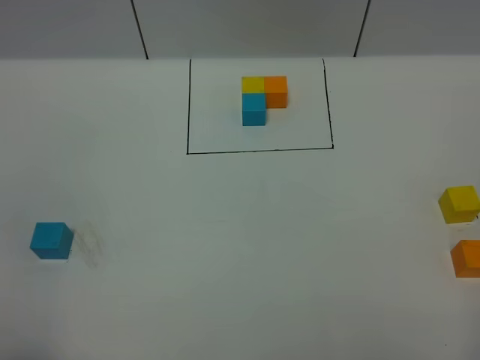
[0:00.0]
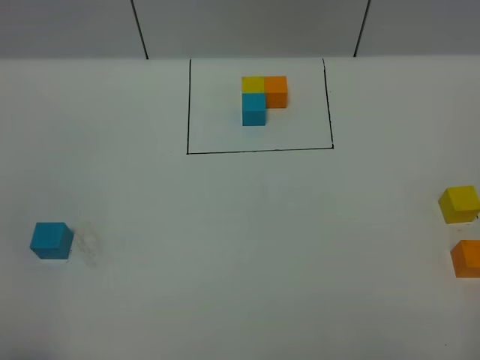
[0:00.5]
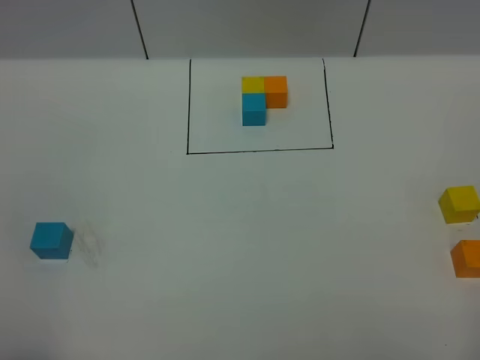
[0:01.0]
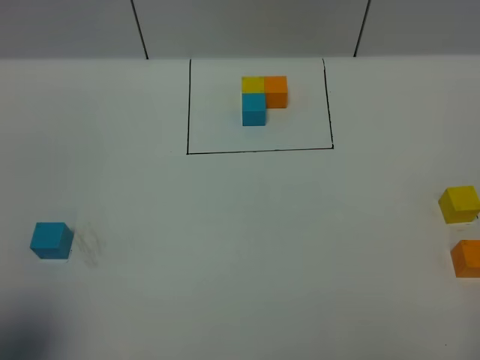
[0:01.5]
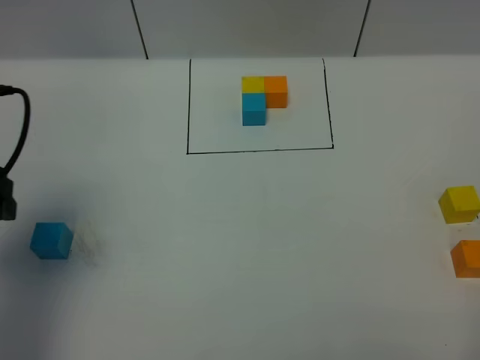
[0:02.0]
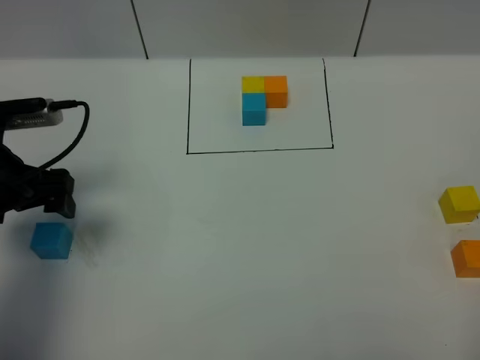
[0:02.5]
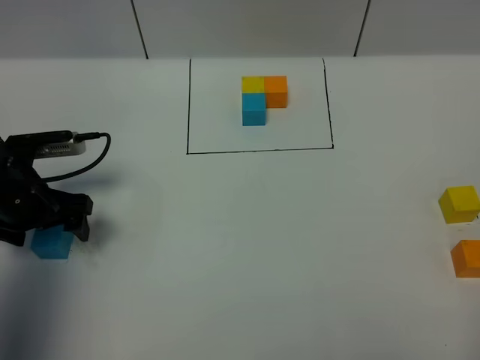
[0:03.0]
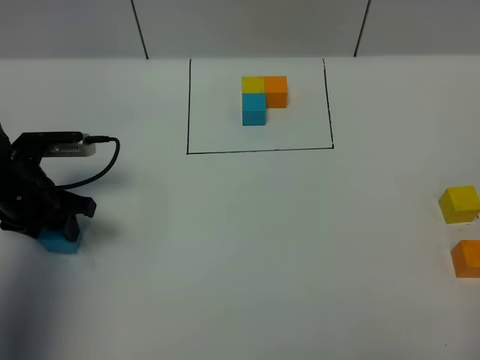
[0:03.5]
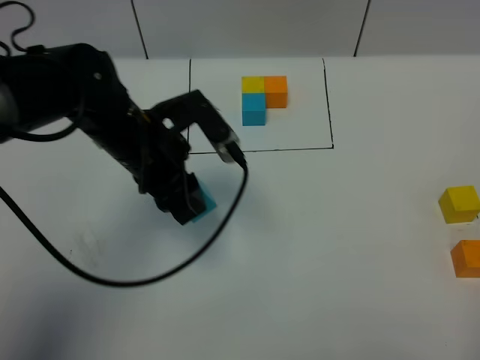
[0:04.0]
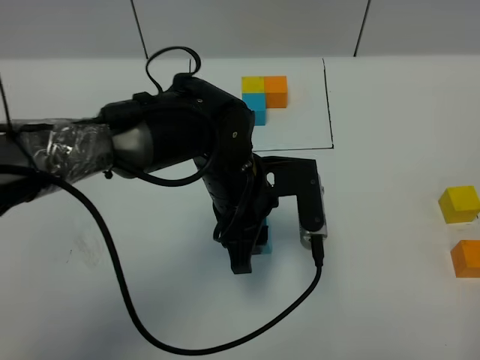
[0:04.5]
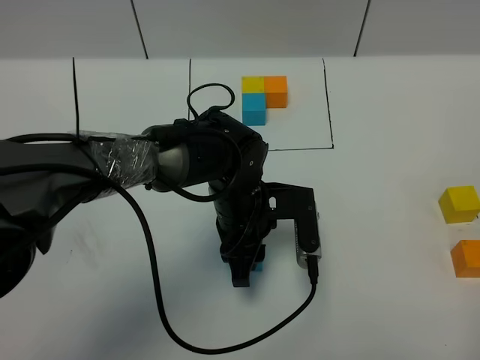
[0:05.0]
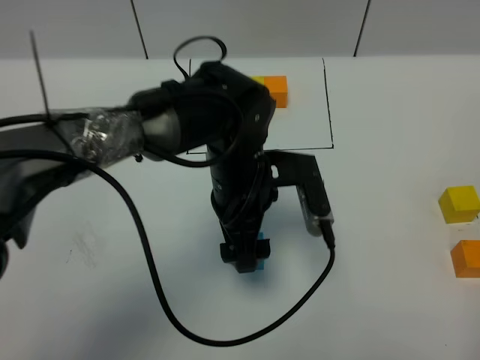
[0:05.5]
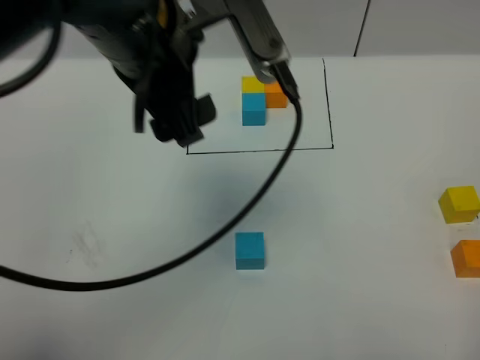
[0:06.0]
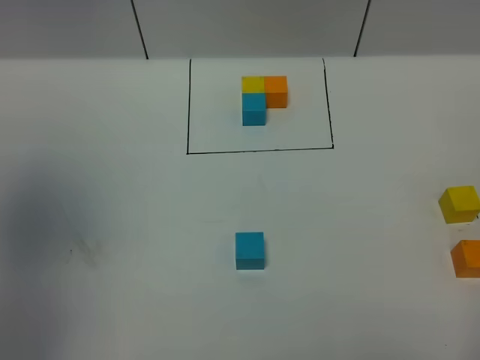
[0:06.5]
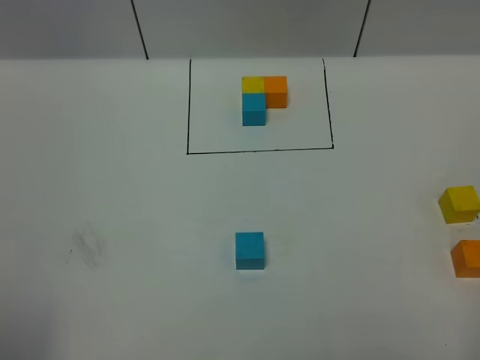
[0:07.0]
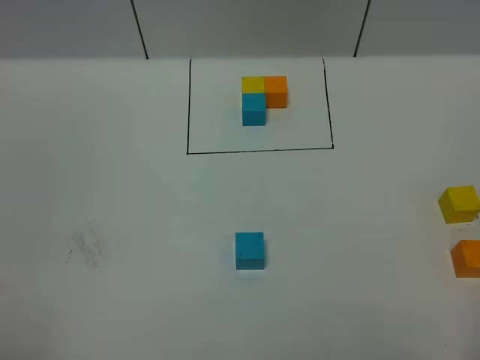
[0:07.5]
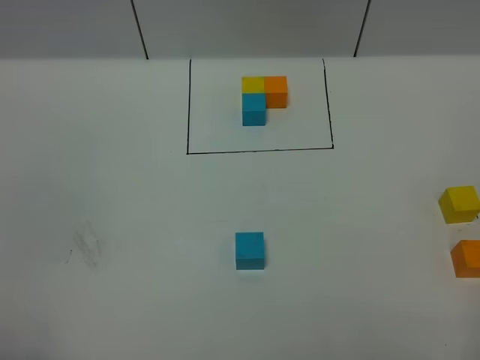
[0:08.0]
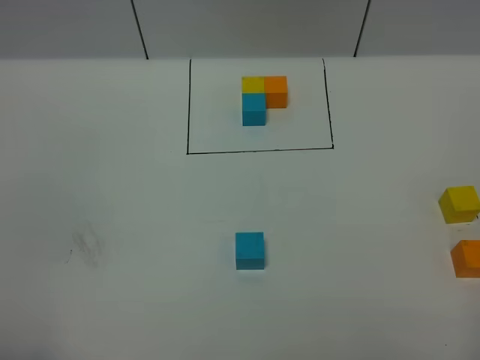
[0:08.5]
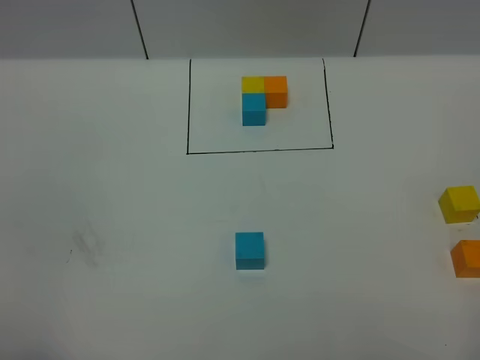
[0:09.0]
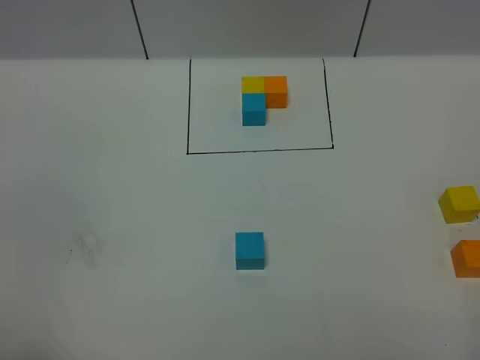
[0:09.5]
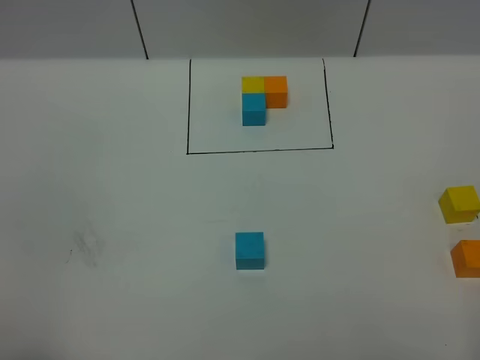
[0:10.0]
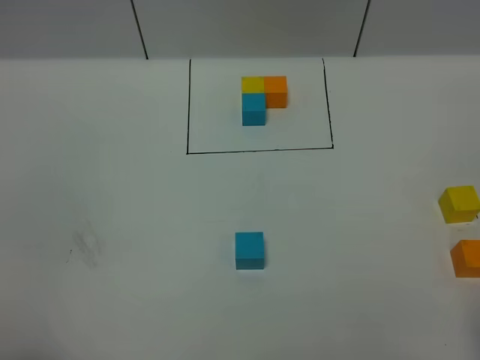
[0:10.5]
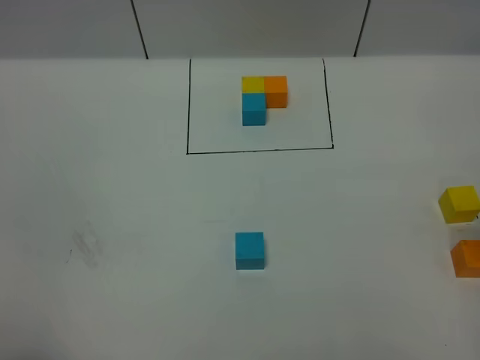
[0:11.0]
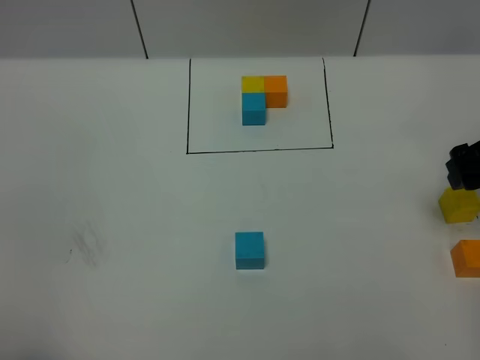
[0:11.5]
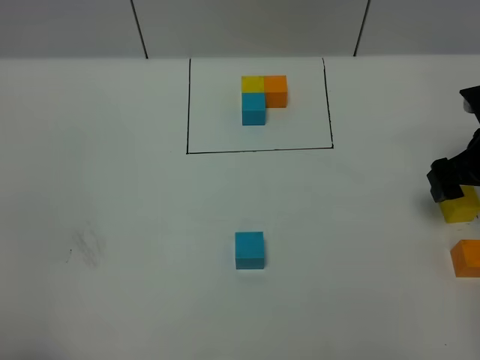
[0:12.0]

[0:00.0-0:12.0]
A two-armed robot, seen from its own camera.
Task of the whole recording: According to the building block template in front, assemble the scattered blocks together.
Step, 0:02.0 to 0:05.5: Put the blue cube in the center of the table.
0:00.0 to 0:02.0: The left gripper travels forward by some 25 cm.
0:02.0 to 0:04.0: The left gripper goes some 20 cm to the right, forward and downward, and closes up.
0:04.0 to 0:06.0: The left gripper heads upward, covering approximately 20 cm, and opens up.
0:06.0 to 0:08.0: The left gripper moves backward and to the left, approximately 35 cm.
0:10.0 to 0:12.0: The right gripper is displaced forward by approximately 35 cm.

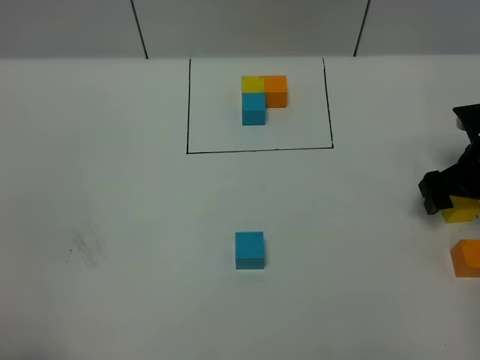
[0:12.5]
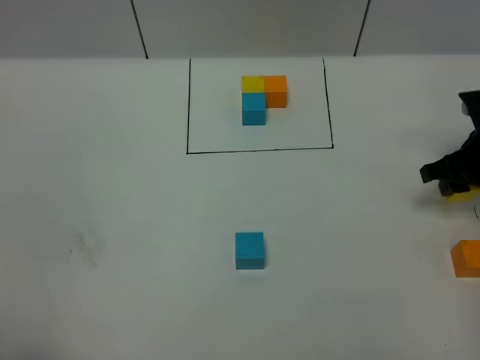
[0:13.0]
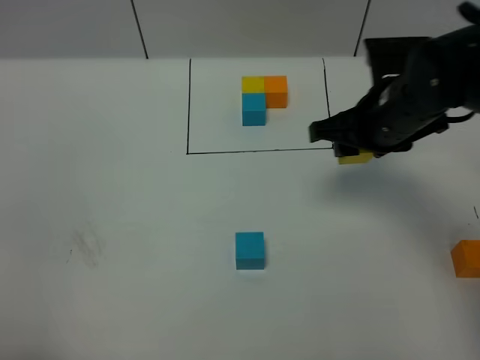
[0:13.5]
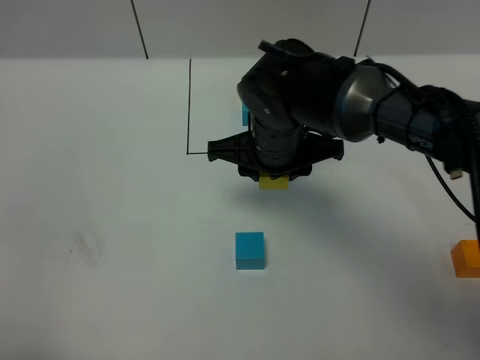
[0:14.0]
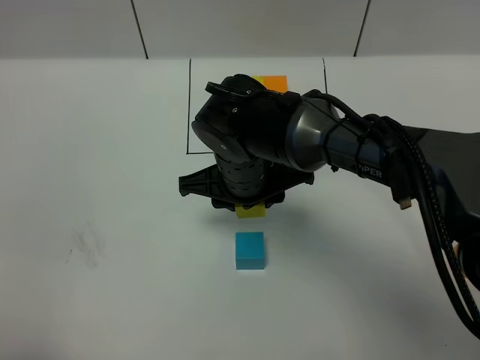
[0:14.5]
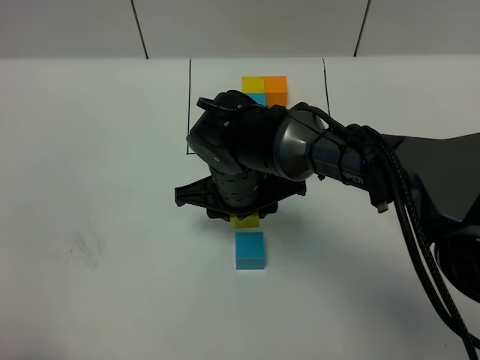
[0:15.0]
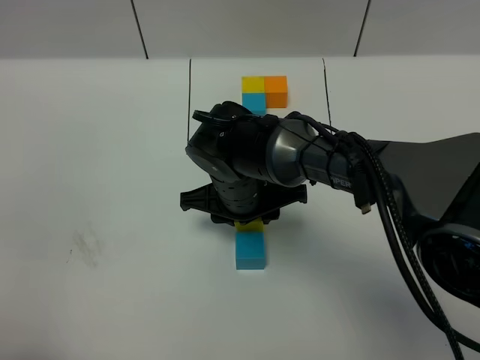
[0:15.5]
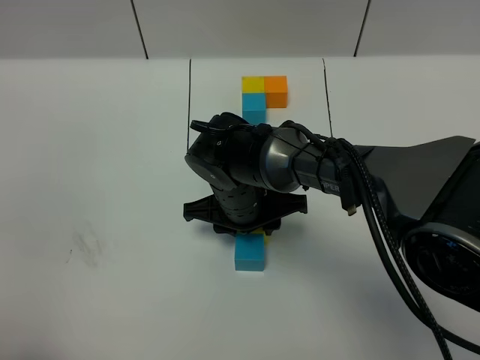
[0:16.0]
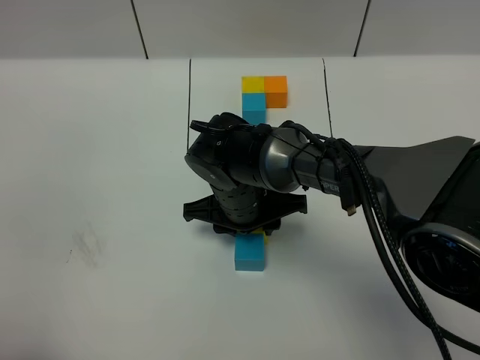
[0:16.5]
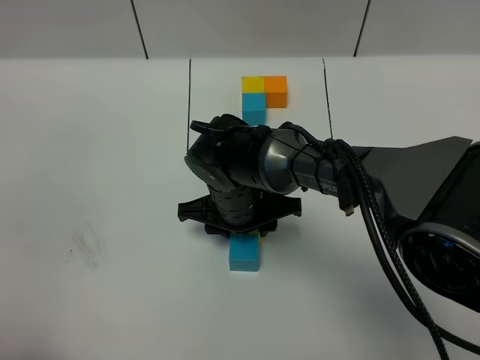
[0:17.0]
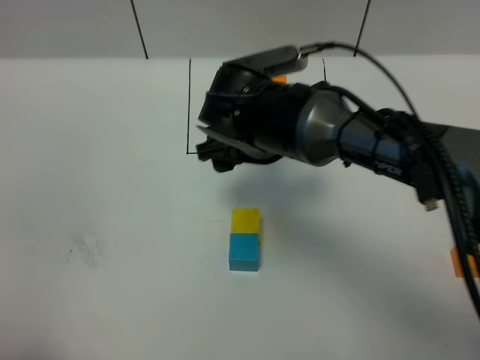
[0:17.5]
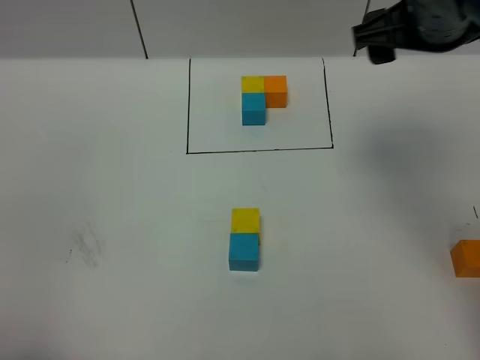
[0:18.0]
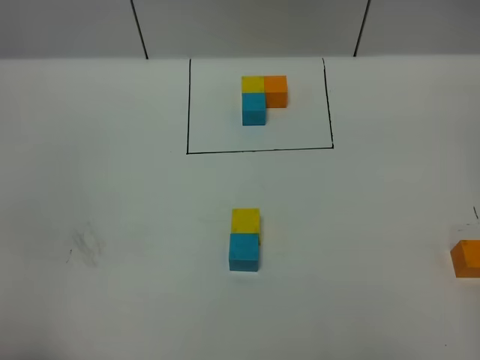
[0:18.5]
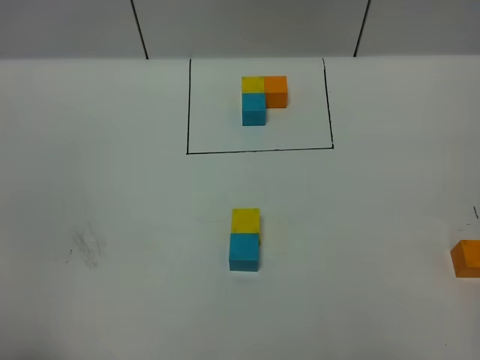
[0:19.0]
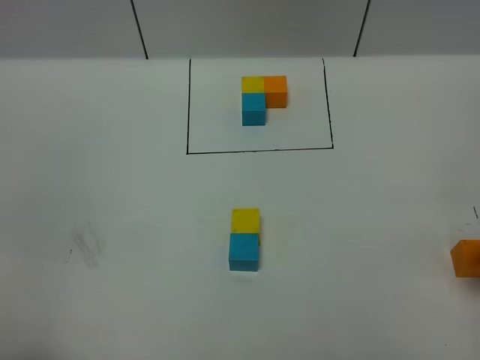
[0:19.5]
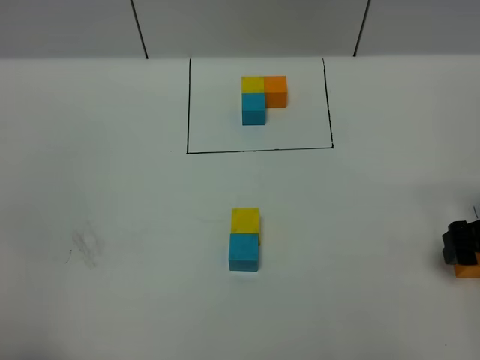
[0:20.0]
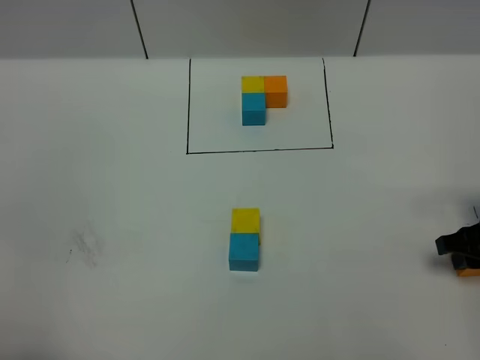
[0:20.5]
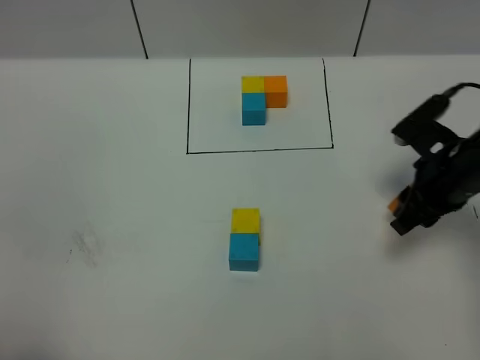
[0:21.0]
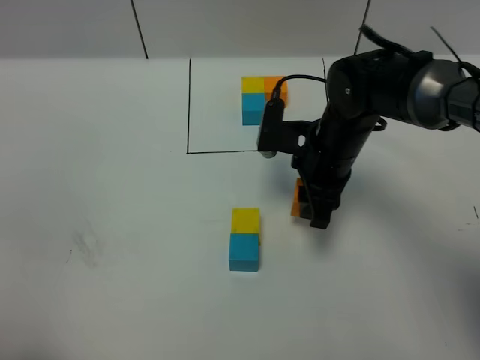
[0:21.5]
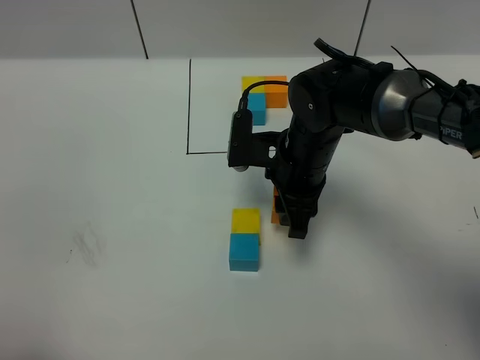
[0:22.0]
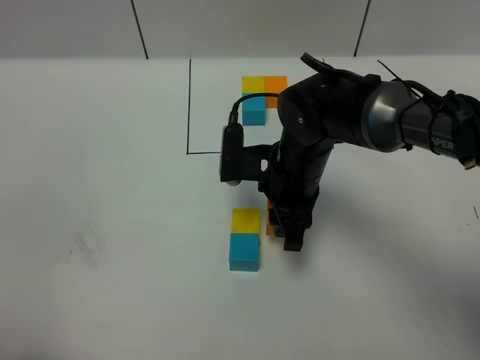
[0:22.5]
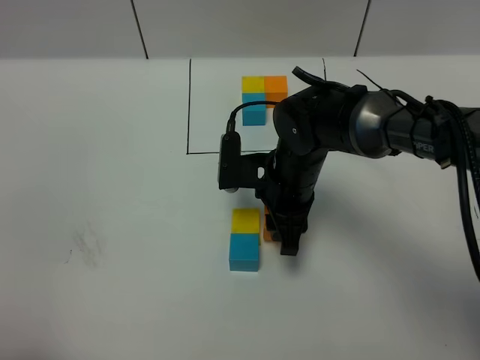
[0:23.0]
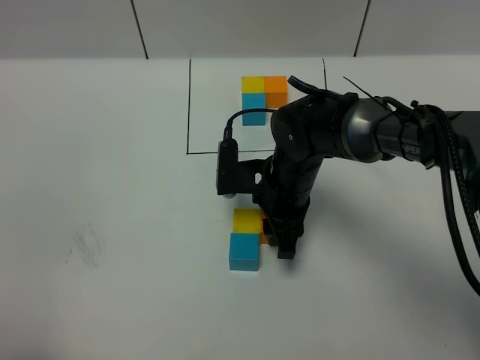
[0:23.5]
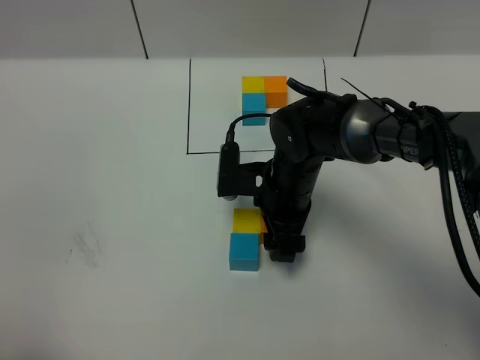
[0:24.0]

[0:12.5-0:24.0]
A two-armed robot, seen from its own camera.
Task of the whole recording: According to the building block template in front, assemble the scattered blocks together.
Step, 0:12.5 to 0:17.0: Put the yellow cube on the behind of the blue cube.
Step, 0:17.5 to 0:24.0: Put the orange cube on the right of the yellow cube.
0:12.5 to 0:14.5: The right gripper is displaced to the left by approximately 30 cm, and closes its fingers.
0:14.5 to 0:16.5: The right gripper moves downward, approximately 5 cm.
0:16.5 to 0:18.5: The right gripper moves to the right and upward, some 50 cm, and opens its fingers.
0:18.5 to 0:20.0: The right gripper heads downward, covering roughly 30 cm.
0:20.0 to 0:22.0: The right gripper goes about 25 cm to the left, and closes its fingers.
0:22.0 to 0:24.0: The right gripper opens.

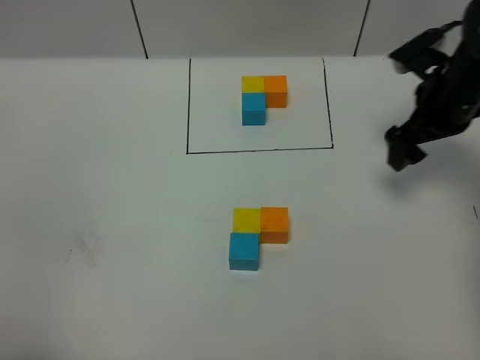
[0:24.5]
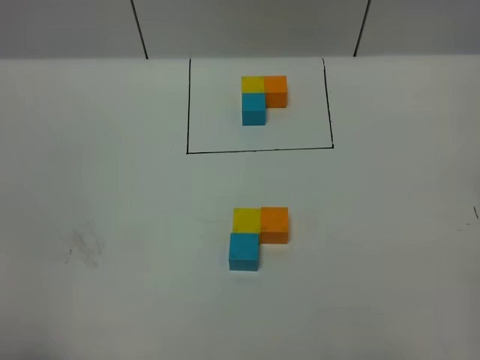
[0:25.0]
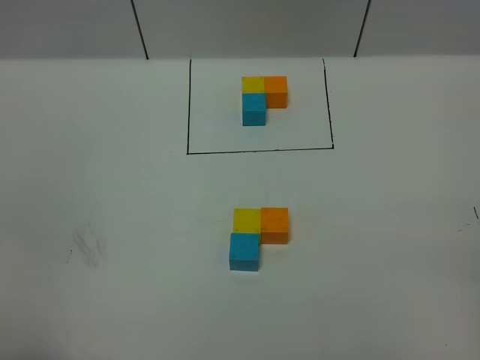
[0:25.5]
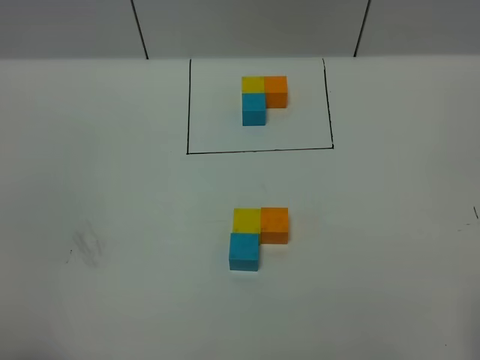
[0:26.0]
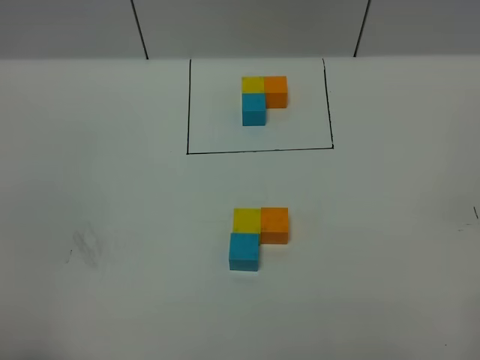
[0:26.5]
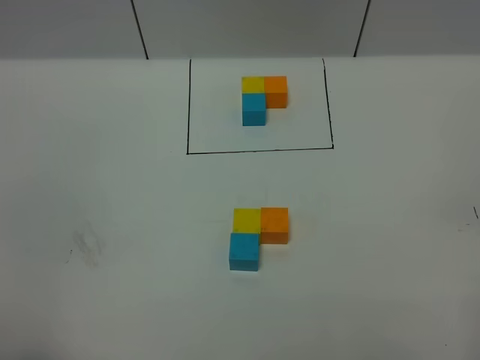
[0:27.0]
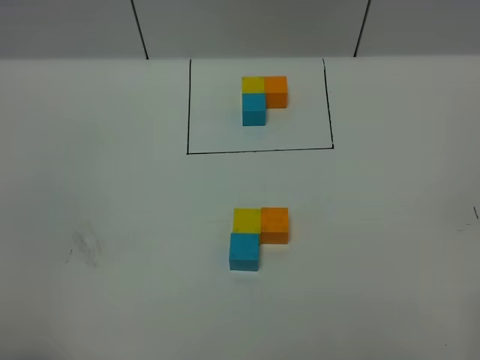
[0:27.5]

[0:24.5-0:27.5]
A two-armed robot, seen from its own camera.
Task of the whole recording: According to the building block template in front, assemble the scattered blocks together.
0:24.5 to 0:26.0: The right gripper moves backward, roughly 35 cm.
